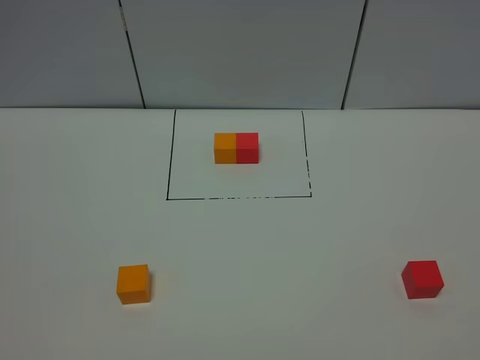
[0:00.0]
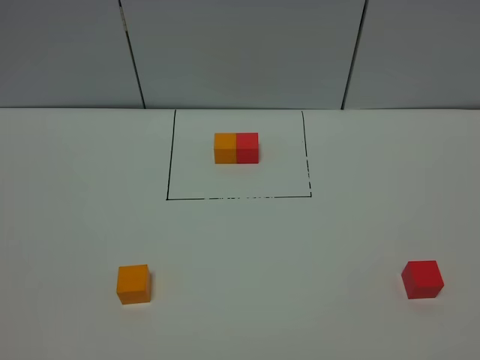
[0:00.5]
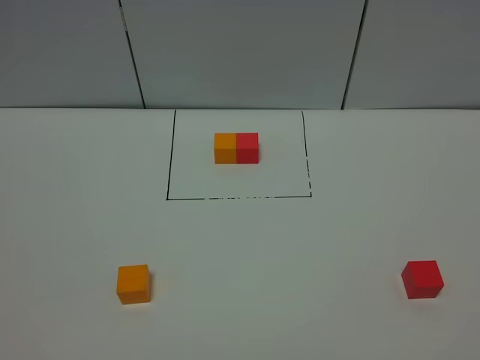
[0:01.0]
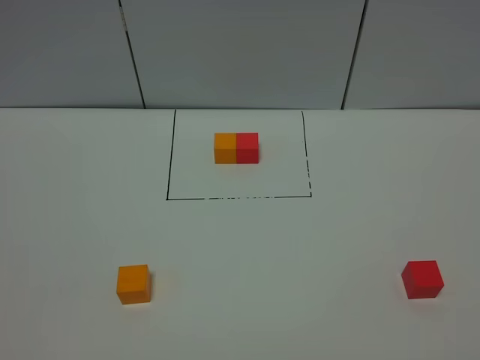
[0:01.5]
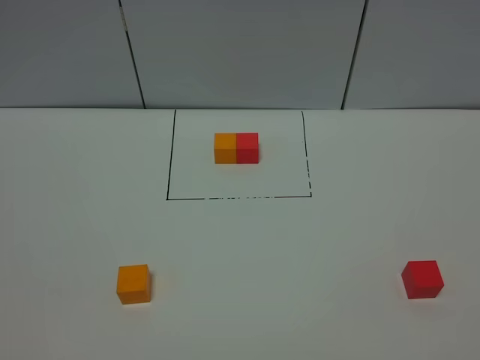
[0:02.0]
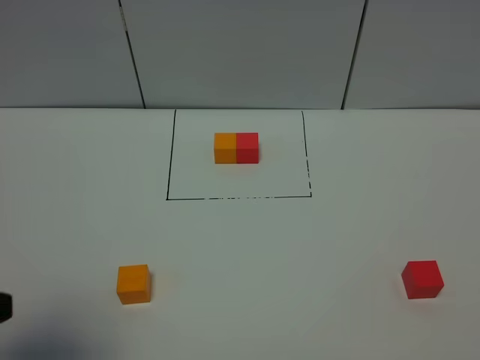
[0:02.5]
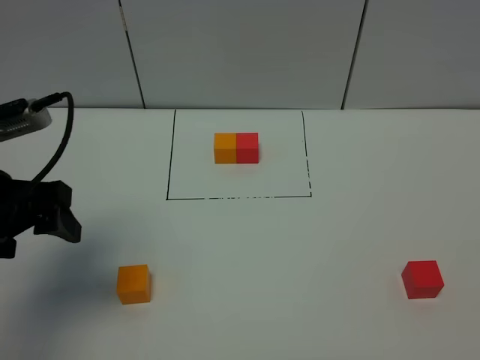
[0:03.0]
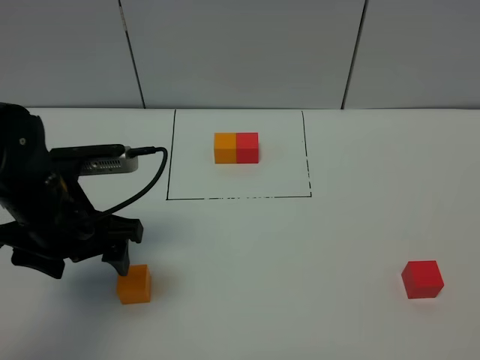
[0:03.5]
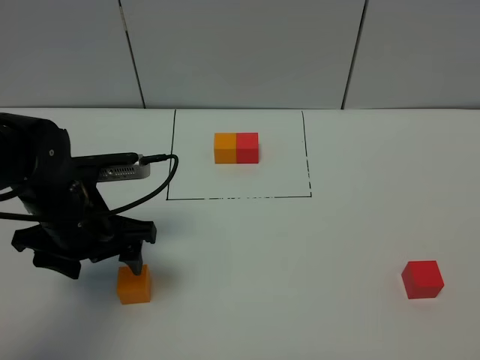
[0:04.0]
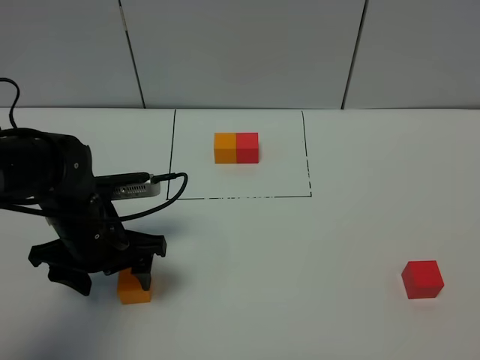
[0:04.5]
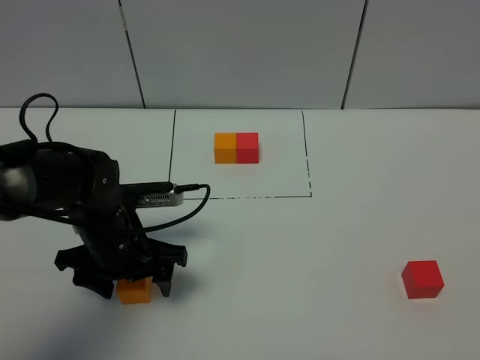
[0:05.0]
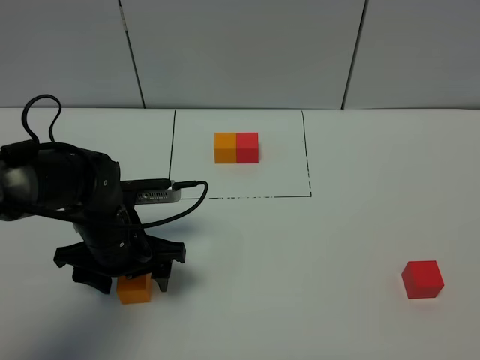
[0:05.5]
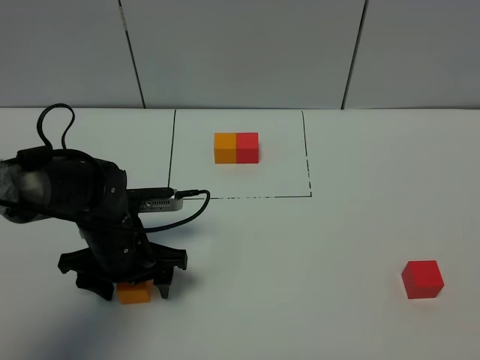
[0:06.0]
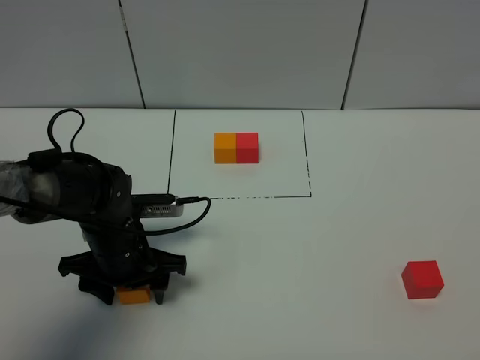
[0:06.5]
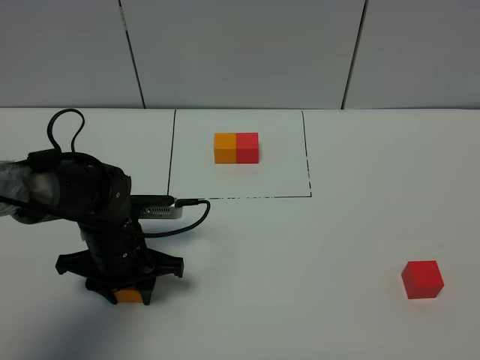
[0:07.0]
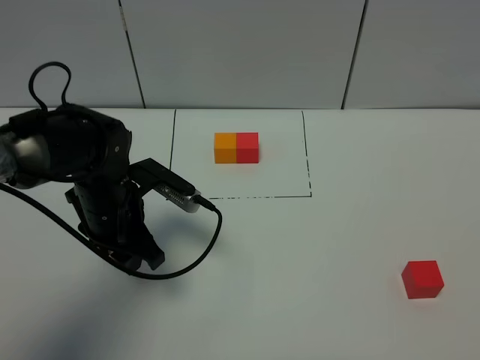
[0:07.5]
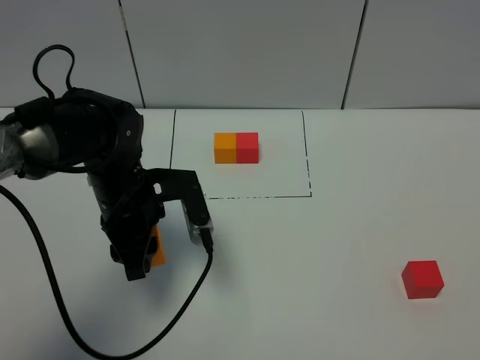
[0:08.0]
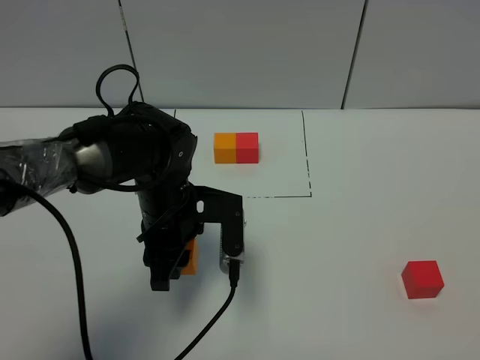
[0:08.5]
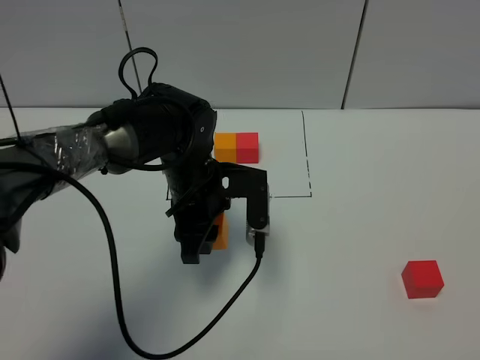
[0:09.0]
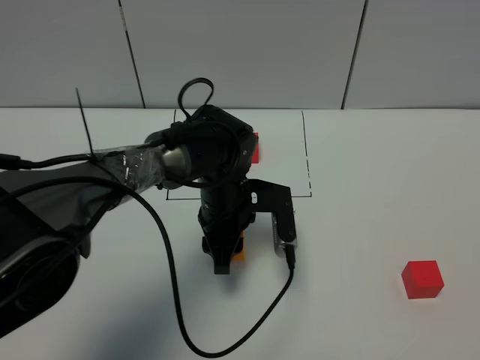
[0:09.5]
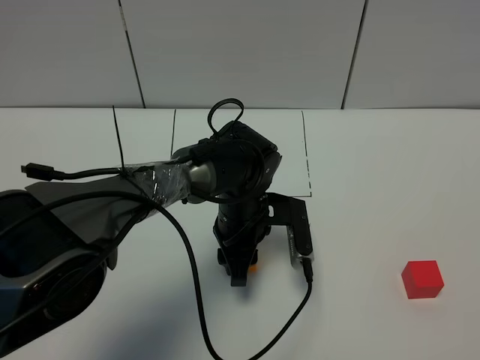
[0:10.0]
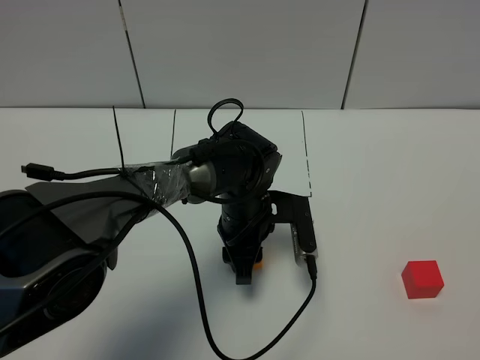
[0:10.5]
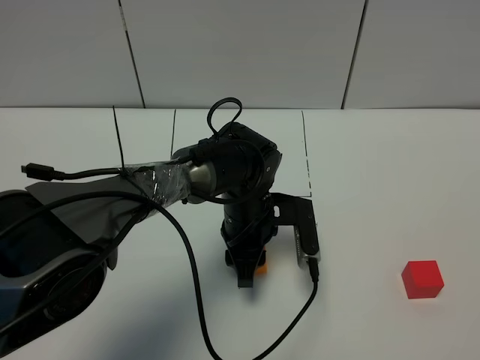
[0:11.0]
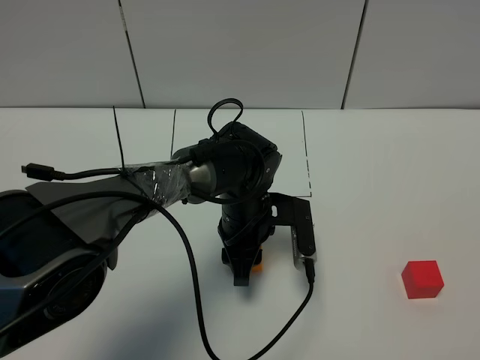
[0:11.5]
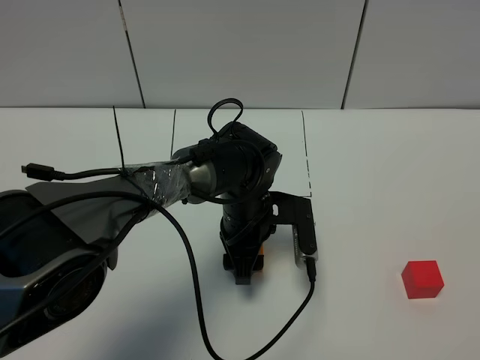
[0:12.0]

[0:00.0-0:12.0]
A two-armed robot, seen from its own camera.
Task of the whole recording: According to the building block template in front, assemble the scattered blocks together.
0:00.0 to 0:02.0: Both grippers stay about where they are.
0:02.0 to 0:04.0: The left gripper goes approximately 30 cm forward.
0:04.0 to 0:06.0: The left gripper shifts about 10 cm downward.
0:06.0 to 0:08.0: The left gripper moves upward, some 5 cm, and closes up.
0:08.0 to 0:10.0: The left gripper is displaced to the right and downward by roughly 15 cm.
0:10.0 to 0:12.0: The left gripper opens.

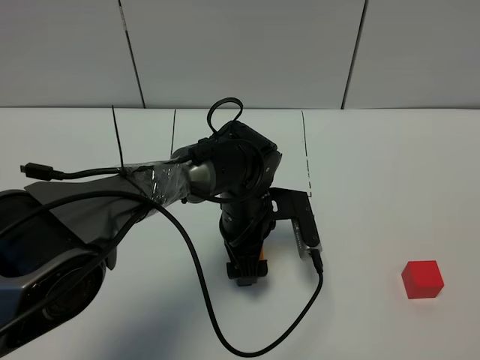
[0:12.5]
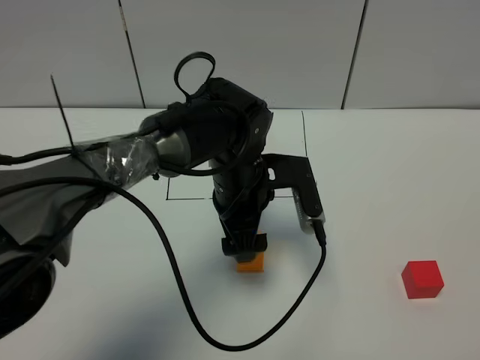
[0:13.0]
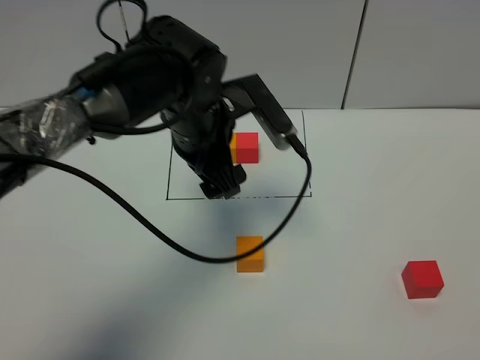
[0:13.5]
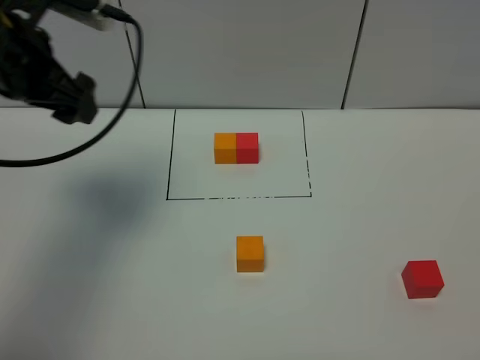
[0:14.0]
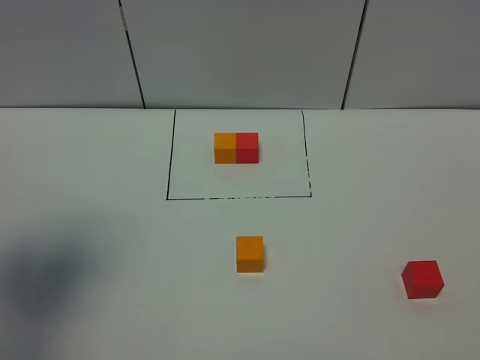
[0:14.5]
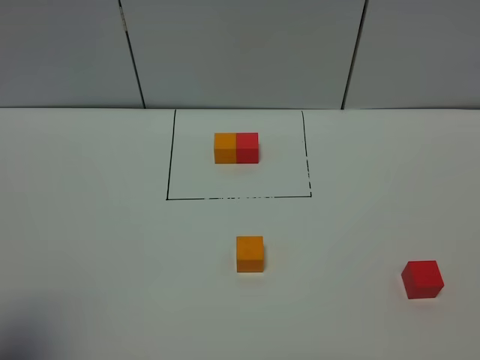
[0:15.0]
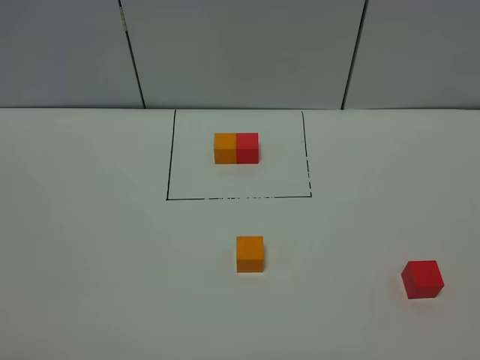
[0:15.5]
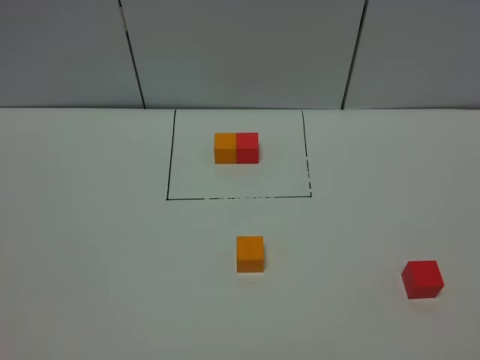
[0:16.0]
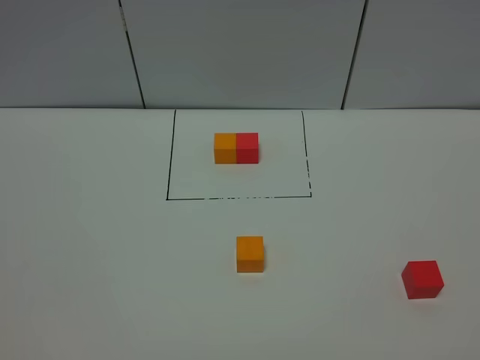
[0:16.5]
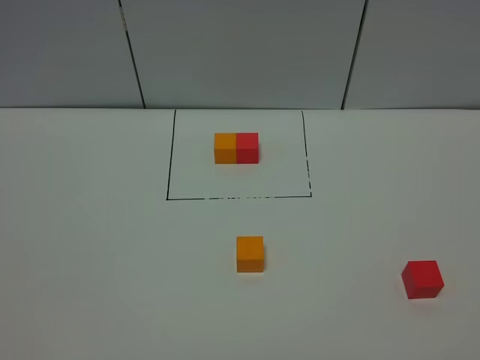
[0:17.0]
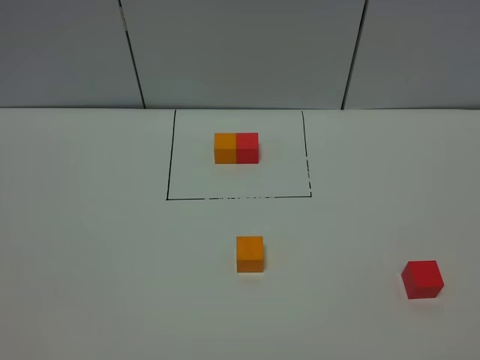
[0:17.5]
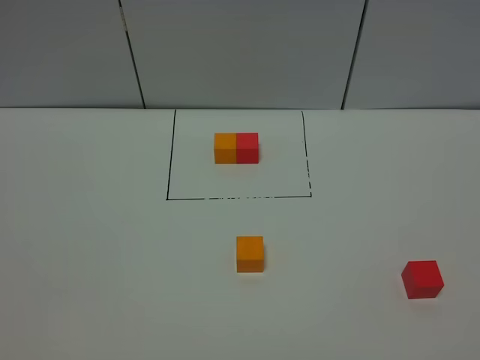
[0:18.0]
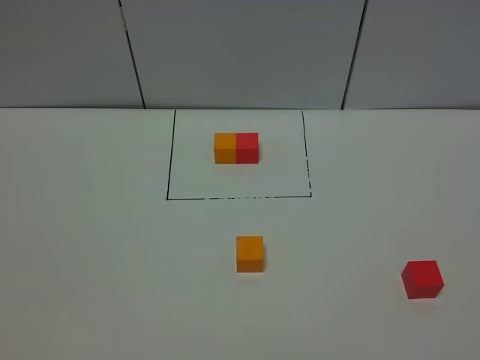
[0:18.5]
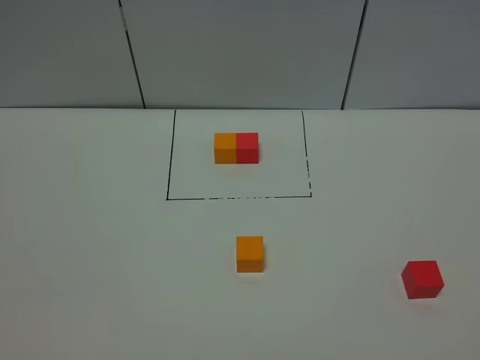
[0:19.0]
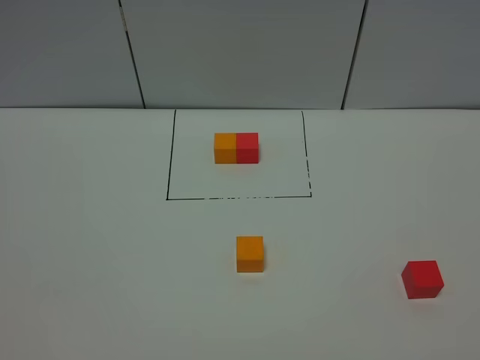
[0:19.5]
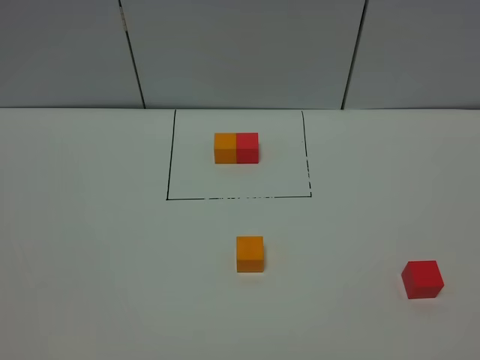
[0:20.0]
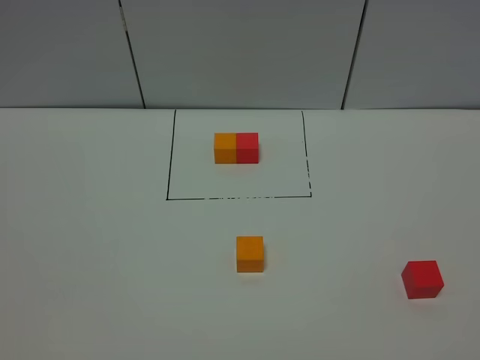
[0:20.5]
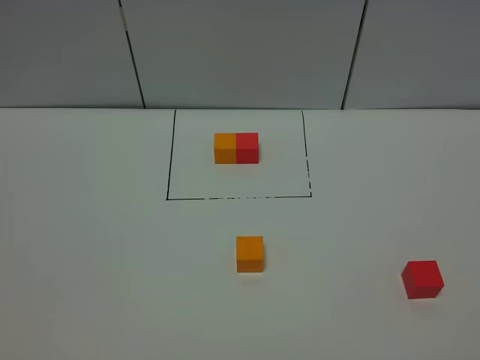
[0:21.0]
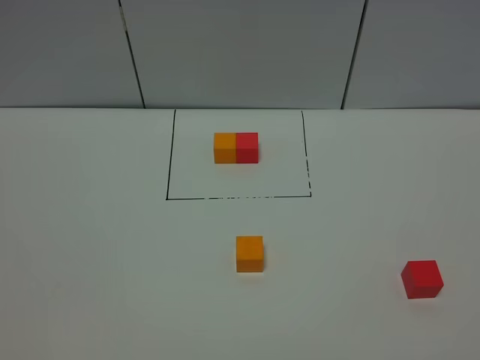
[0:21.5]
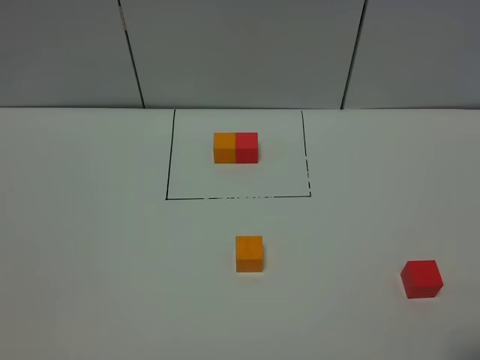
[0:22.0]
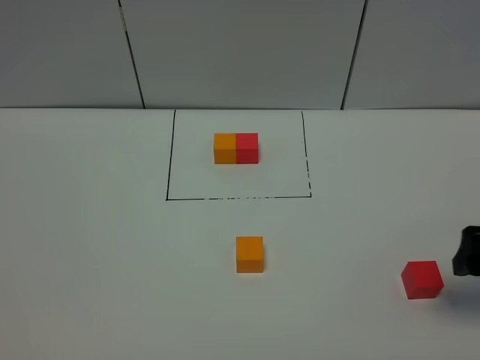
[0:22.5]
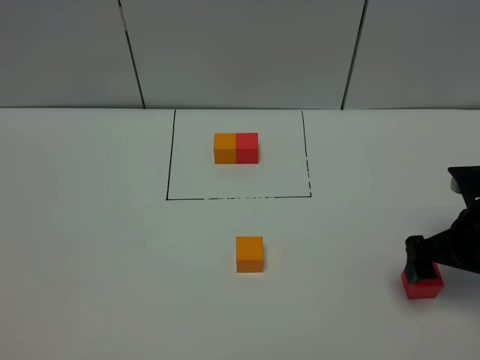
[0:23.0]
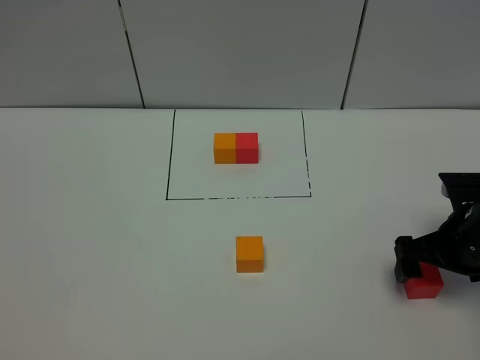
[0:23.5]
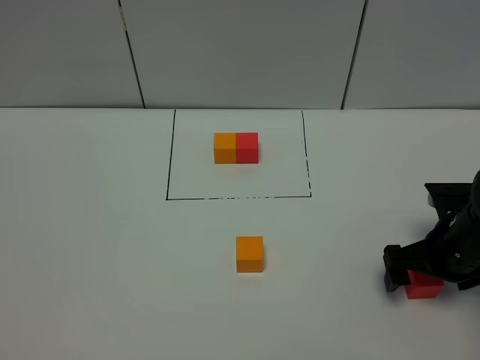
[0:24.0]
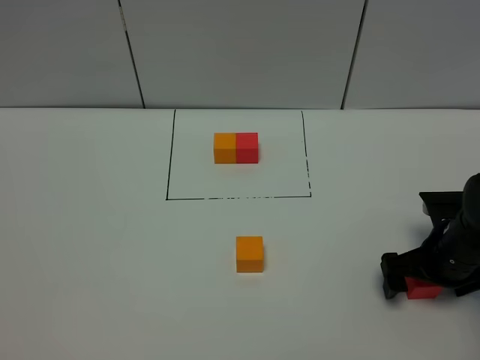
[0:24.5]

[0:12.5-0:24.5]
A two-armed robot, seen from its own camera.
Task of the whole recording: According to the building block template in front, assemble the scattered blocks together.
0:12.5 to 0:14.5: The left gripper is displaced to the left, upward and backward by some 40 cm.
0:14.5 to 0:16.5: The left gripper goes some 25 cm backward and downward.
0:18.5 to 0:20.5: Both grippers stay about where they are.
0:20.5 to 0:22.5: The right gripper heads forward, covering about 25 cm.
0:22.5 to 0:24.5: The right gripper goes about 15 cm downward and forward.

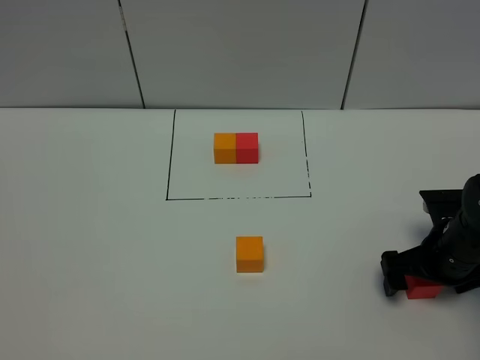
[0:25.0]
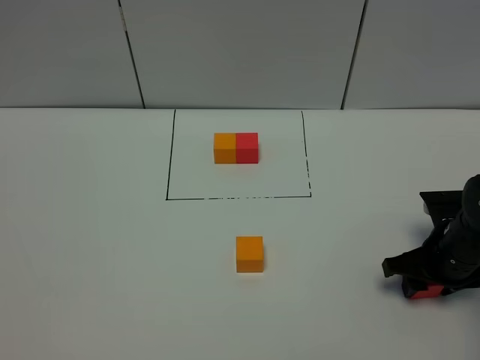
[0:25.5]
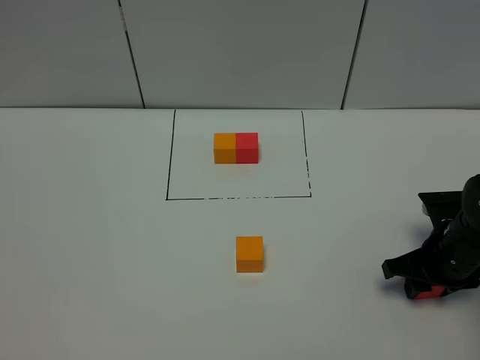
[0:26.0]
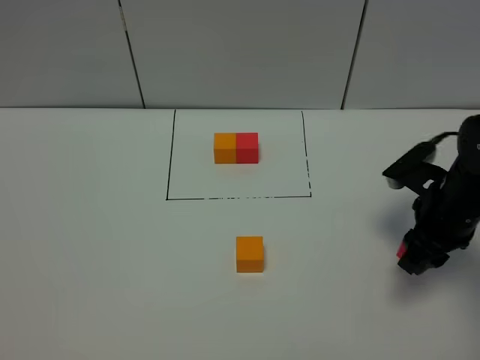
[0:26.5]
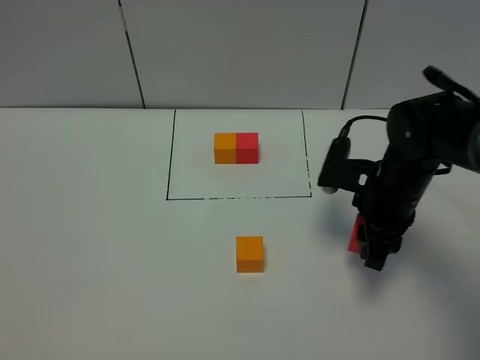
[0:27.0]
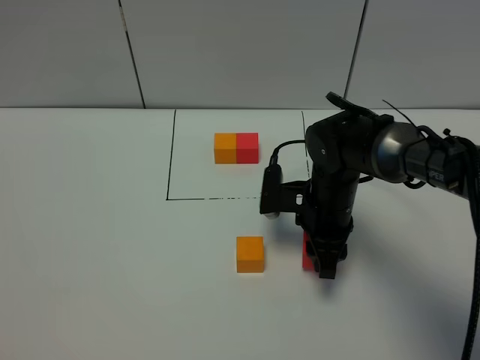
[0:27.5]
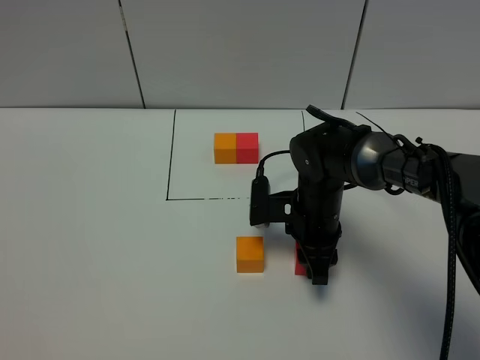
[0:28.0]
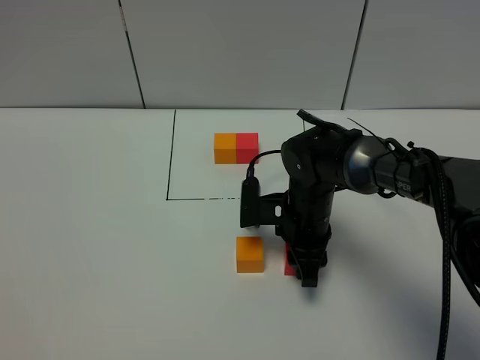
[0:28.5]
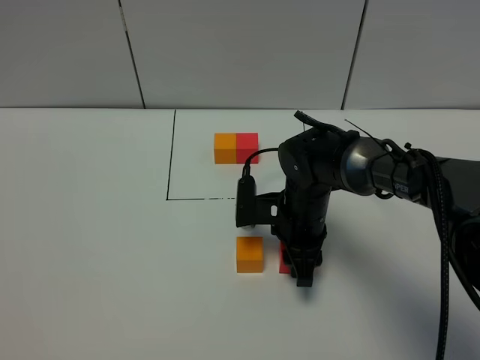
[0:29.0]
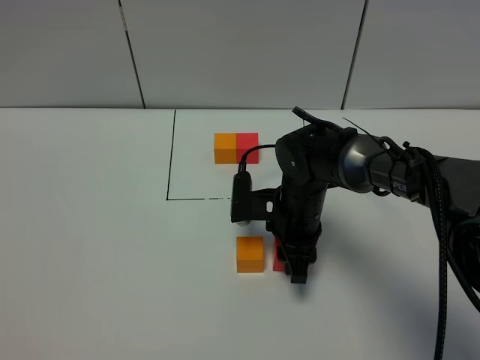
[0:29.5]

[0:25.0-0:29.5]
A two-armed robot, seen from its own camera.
Task of the whole recording: According to the building block template in front, assemble the scattered blocks together.
0:25.0 to 0:27.0: The right gripper travels to the left and upward by approximately 10 cm, and closes its fingers.
0:27.0 to 0:29.5: The right gripper is displaced to the left and downward by roughly 10 cm.
